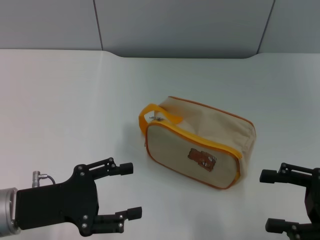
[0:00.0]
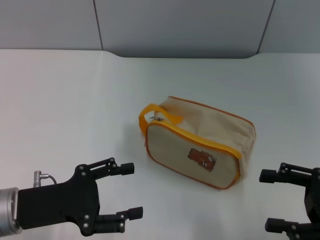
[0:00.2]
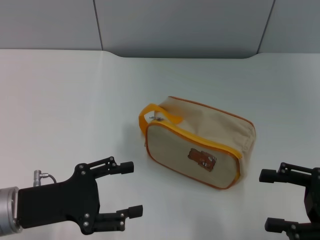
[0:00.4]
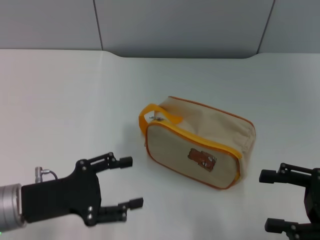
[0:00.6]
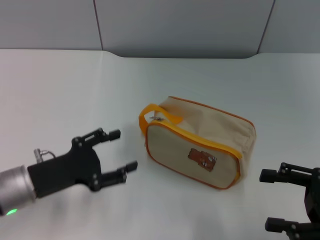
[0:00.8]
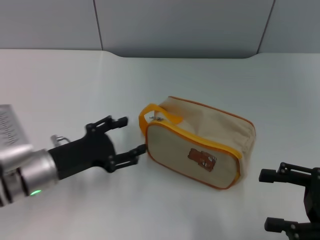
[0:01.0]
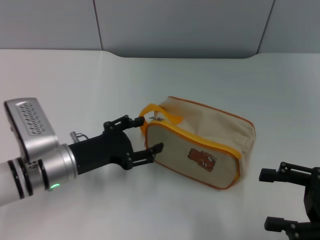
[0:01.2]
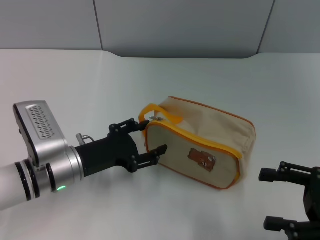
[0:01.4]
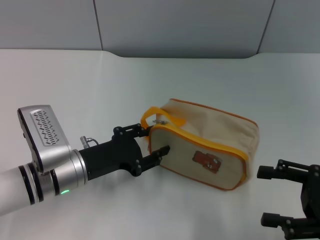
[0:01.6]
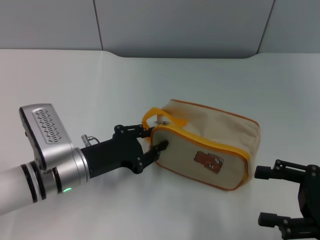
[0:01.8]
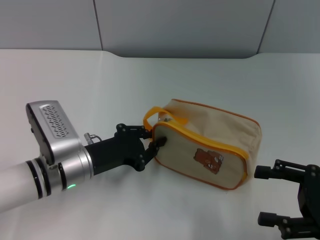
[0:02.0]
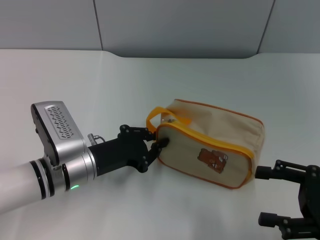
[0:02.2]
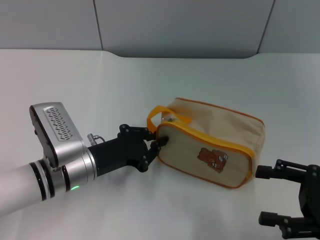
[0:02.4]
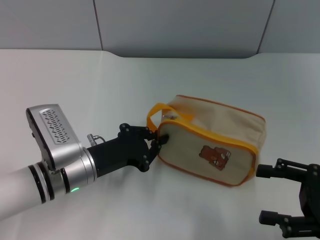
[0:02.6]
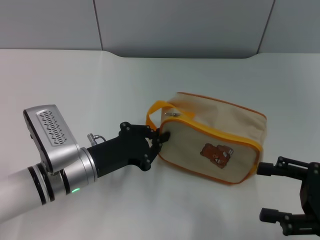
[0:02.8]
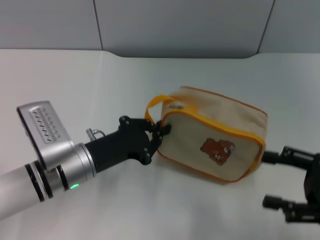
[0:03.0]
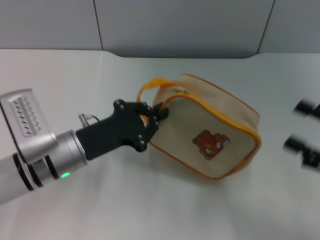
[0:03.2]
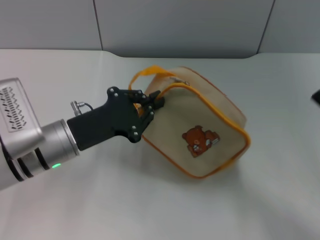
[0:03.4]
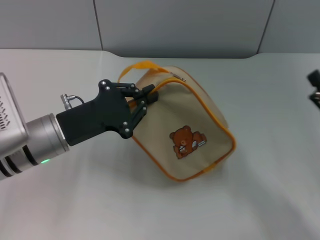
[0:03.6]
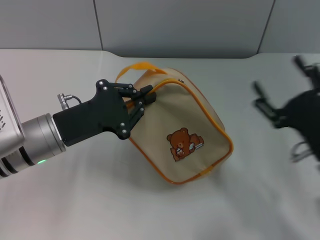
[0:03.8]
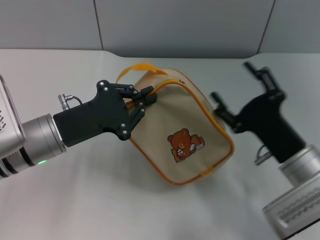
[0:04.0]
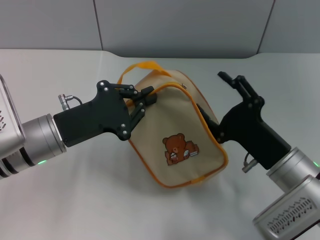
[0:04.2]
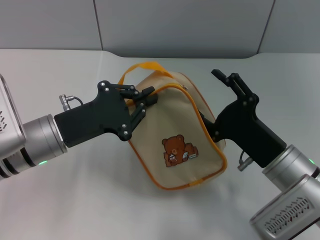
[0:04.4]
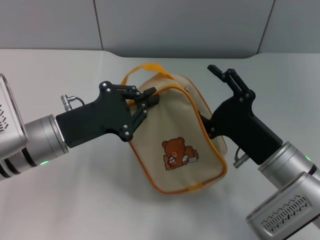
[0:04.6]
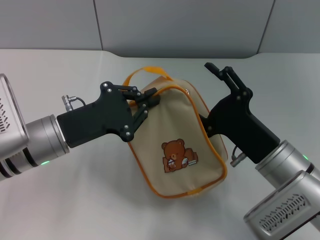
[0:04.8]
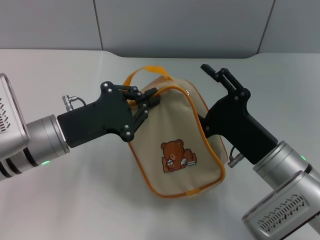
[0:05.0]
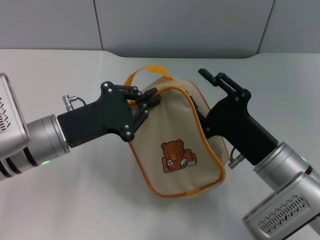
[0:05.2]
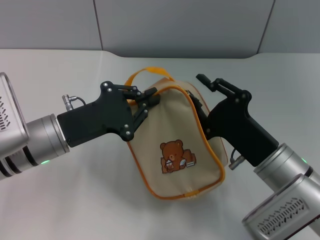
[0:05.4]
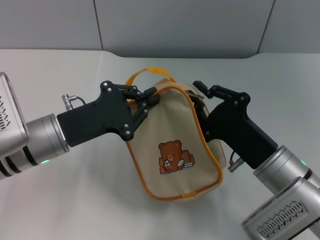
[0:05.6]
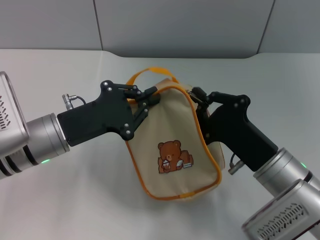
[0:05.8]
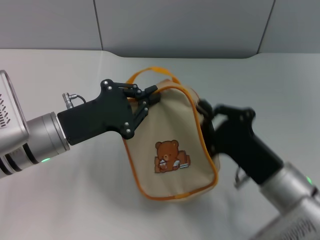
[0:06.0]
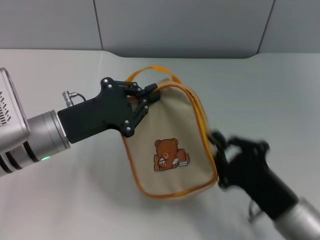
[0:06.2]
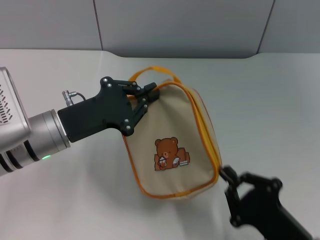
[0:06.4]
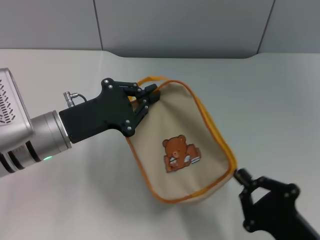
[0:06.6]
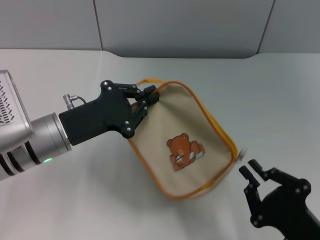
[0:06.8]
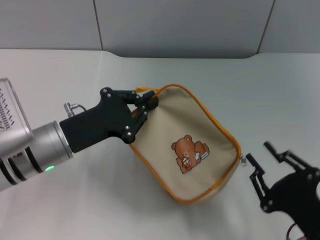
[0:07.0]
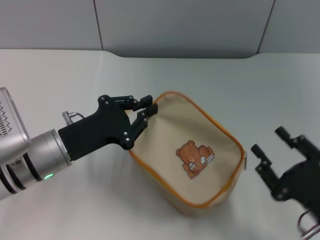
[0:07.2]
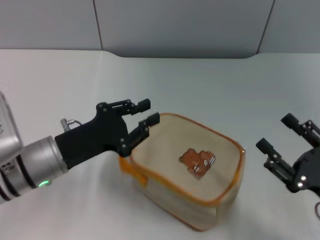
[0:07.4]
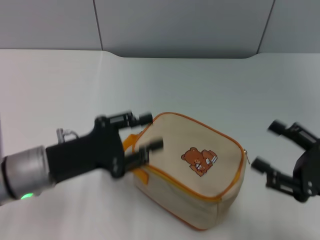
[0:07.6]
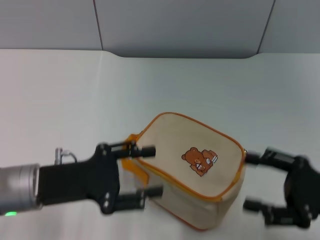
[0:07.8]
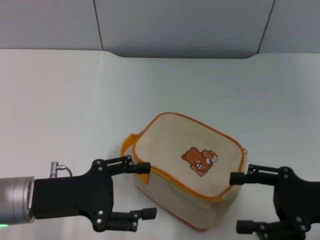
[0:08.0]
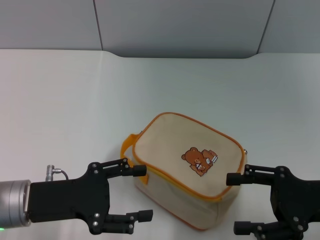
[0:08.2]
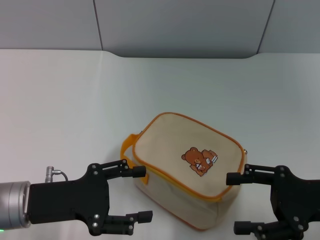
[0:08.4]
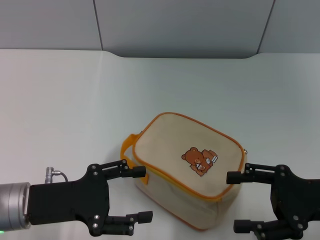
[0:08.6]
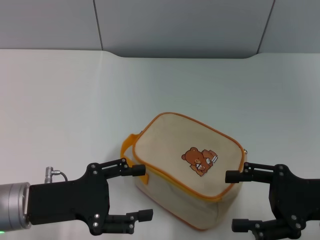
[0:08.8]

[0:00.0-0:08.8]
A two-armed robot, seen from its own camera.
Step, 0:00.0 to 0:03.2: Pick up the bag with left gripper.
Step, 0:03.4 to 0:06.8: Unzip the zipper of bag with right gripper.
Step, 0:07.0 to 0:07.4: Place the bag on the table with left gripper.
0:00.0 to 0:01.4: The left gripper shifts about 10 cm forward and to the right.
0:01.4 to 0:03.0: The left gripper closes up.
0:03.0 to 0:04.4: The left gripper changes place by approximately 5 cm; the right gripper shifts approximately 15 cm to the left.
0:04.4 to 0:05.8: The right gripper closes up.
0:05.8 to 0:07.4: The right gripper shifts roughly 15 cm to the right and backward.
0:07.4 to 0:08.8: The right gripper travels forward and upward by some 10 cm, and opens up; the left gripper is displaced backward by some 5 cm, and opens.

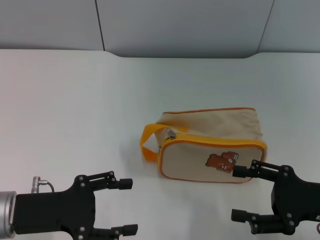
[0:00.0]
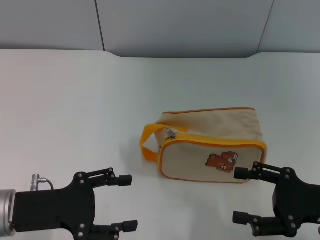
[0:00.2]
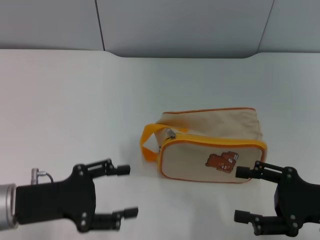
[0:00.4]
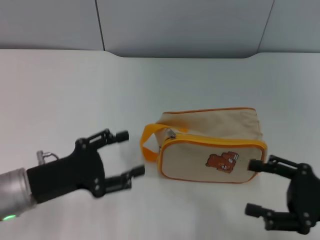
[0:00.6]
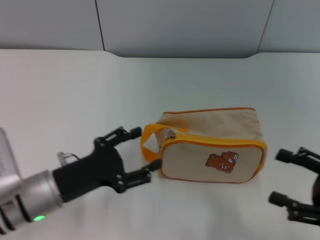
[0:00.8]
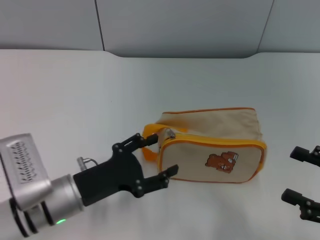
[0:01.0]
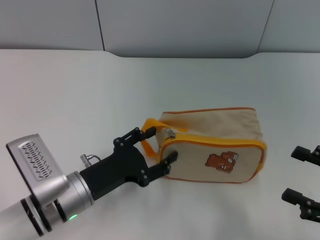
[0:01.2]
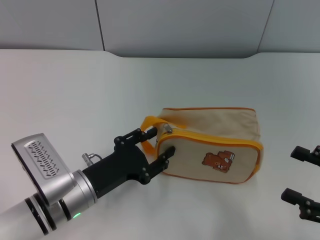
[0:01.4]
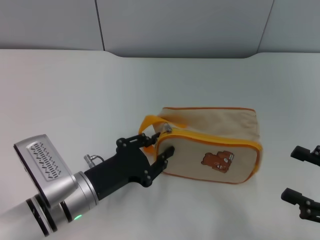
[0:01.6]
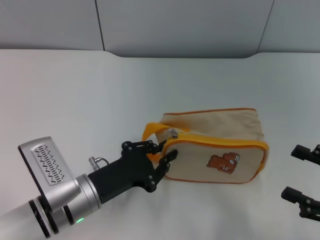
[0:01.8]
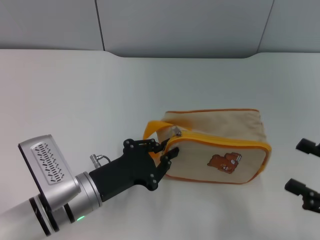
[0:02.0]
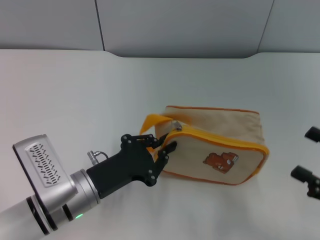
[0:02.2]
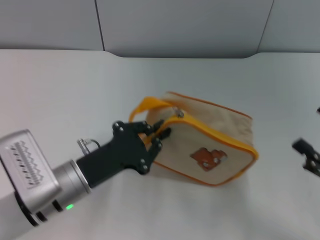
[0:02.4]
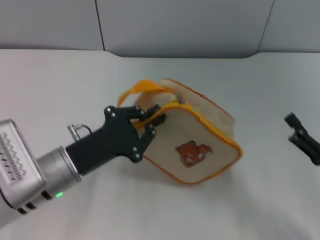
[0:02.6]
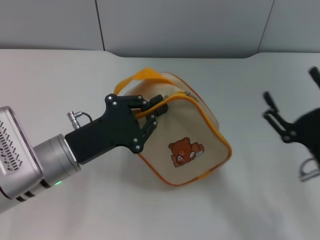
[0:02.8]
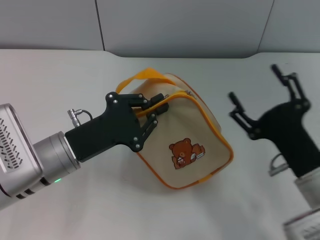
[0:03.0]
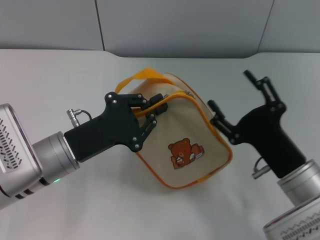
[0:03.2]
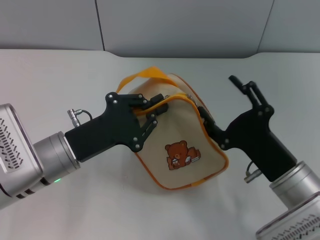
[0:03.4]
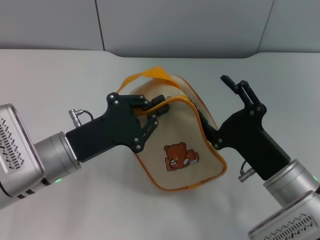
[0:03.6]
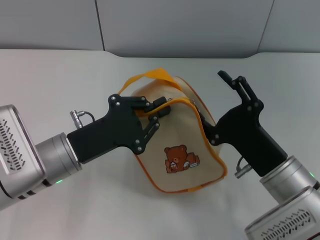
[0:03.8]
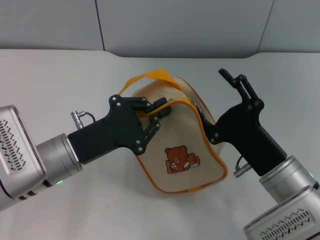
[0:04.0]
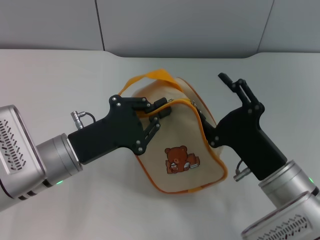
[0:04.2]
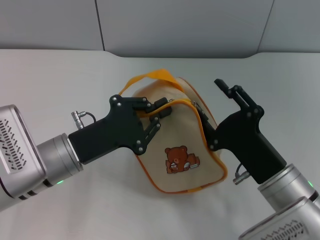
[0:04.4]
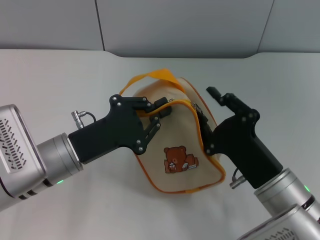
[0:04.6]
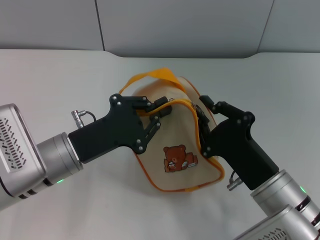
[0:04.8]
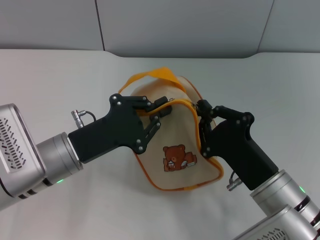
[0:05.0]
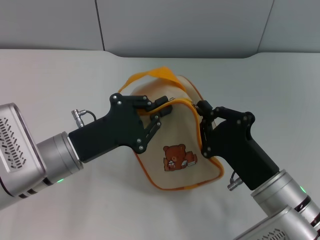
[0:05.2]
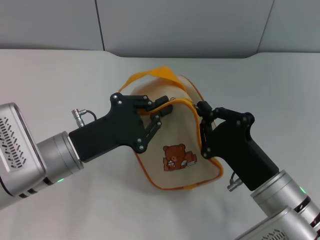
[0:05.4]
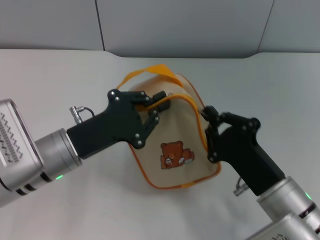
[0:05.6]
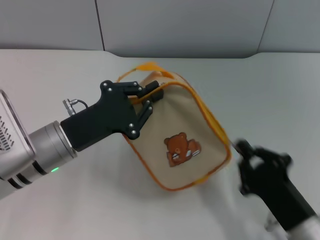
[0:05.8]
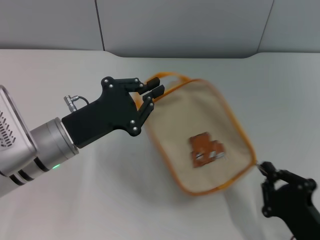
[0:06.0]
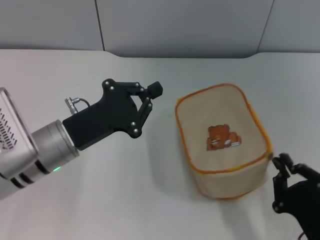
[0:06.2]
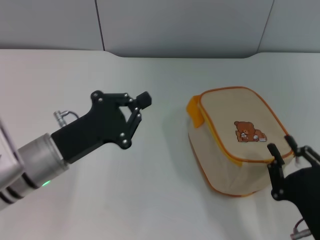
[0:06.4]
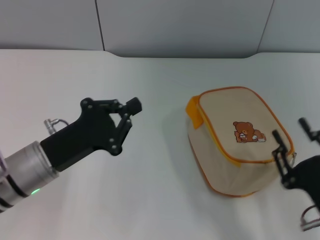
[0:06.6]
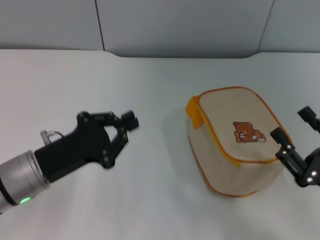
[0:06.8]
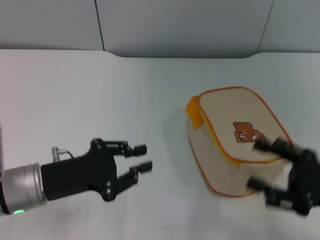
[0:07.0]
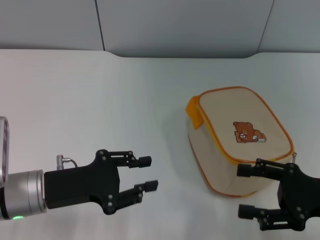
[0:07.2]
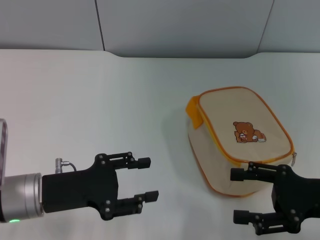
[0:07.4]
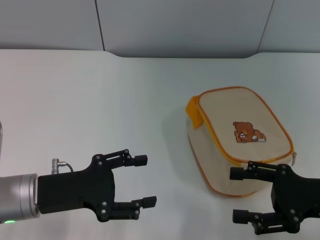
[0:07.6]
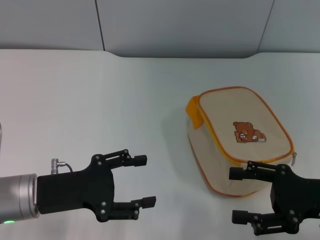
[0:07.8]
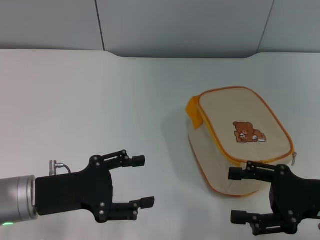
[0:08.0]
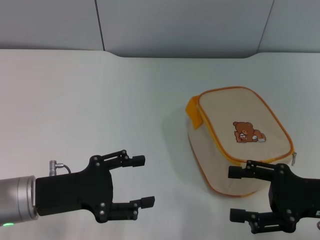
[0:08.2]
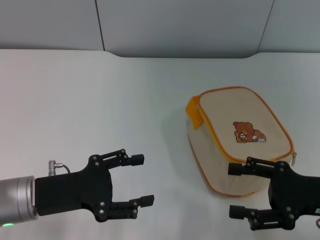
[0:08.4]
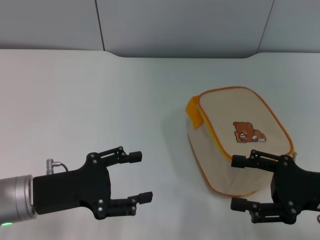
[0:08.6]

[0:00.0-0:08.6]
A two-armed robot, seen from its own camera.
Step, 0:00.0 to 0:02.8: Pick up the bag with left gripper.
Step, 0:03.0 to 0:06.4: Unzip the zipper of bag with right gripper.
0:00.0 to 0:01.4: The left gripper heads to the right and downward, covering roughly 10 cm; the right gripper moves some 5 cm.
0:01.4 to 0:02.8: The left gripper moves upward, about 5 cm, and closes its fingers; the right gripper moves to the left, approximately 10 cm.
0:02.8 to 0:04.4: The right gripper travels to the left by about 10 cm.
0:04.4 to 0:05.8: The right gripper ends up about 5 cm from where it was, and closes.
0:05.8 to 0:07.2: The left gripper changes place by about 5 cm; the right gripper moves to the right, upward and forward, about 15 cm, and opens its fingers.
0:07.2 to 0:08.6: The left gripper opens up.

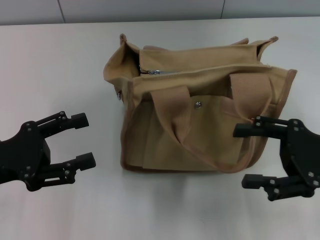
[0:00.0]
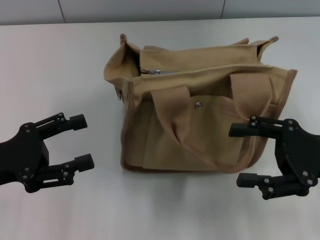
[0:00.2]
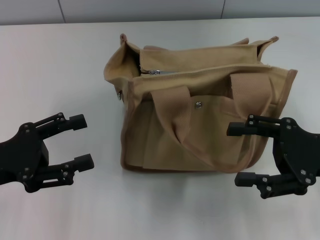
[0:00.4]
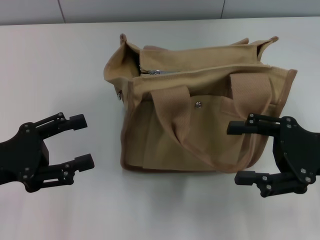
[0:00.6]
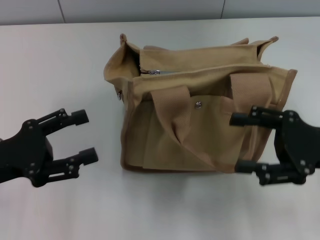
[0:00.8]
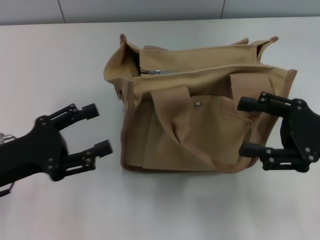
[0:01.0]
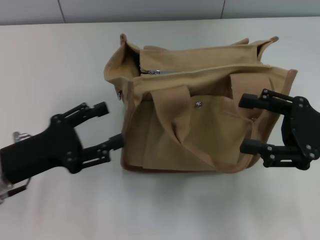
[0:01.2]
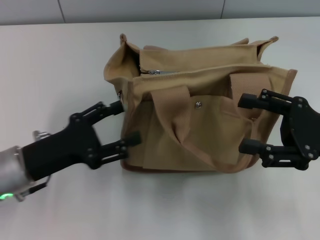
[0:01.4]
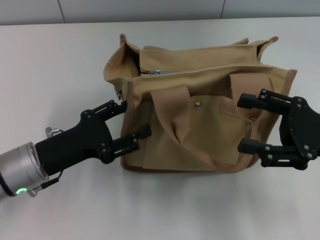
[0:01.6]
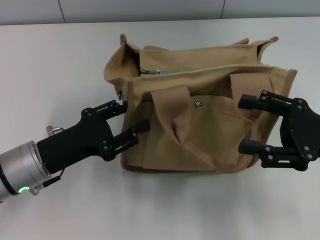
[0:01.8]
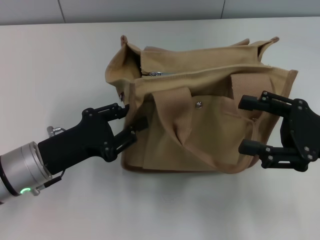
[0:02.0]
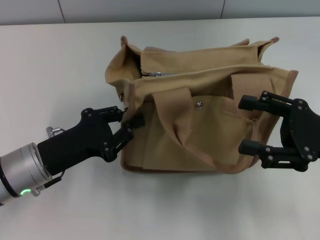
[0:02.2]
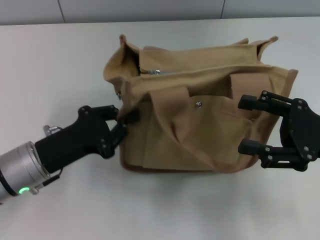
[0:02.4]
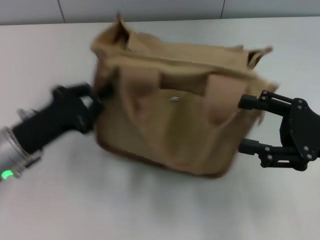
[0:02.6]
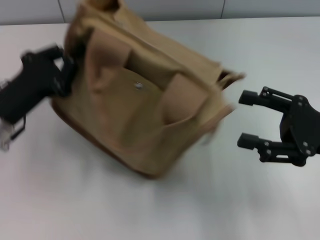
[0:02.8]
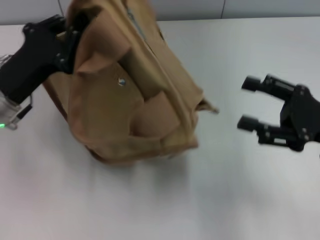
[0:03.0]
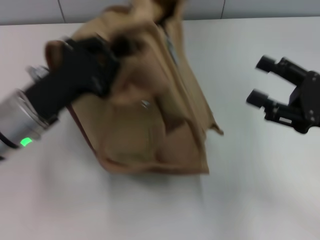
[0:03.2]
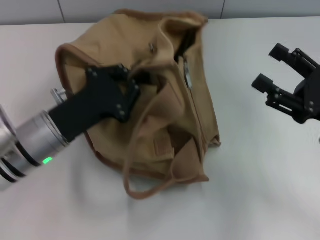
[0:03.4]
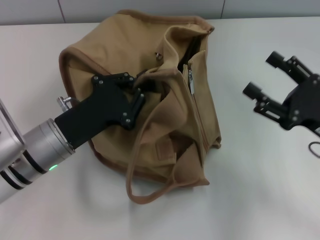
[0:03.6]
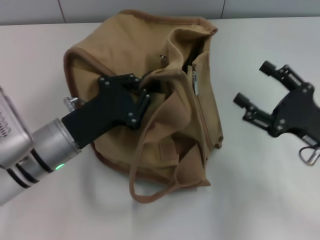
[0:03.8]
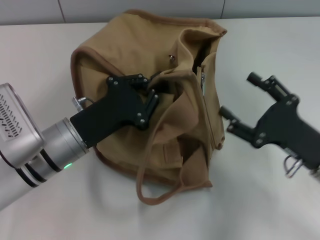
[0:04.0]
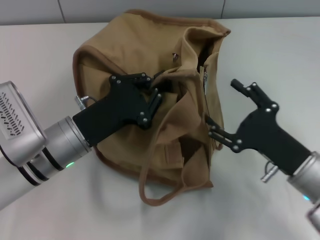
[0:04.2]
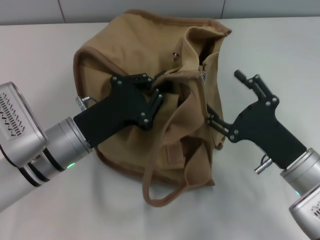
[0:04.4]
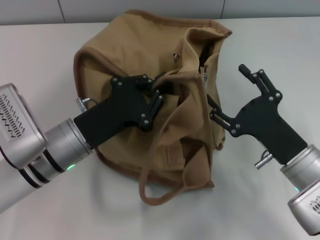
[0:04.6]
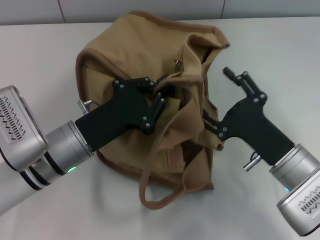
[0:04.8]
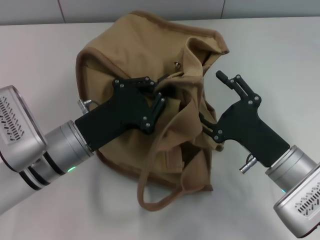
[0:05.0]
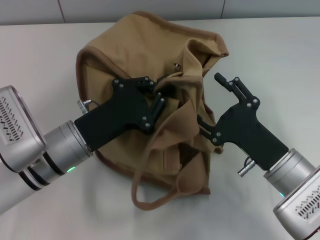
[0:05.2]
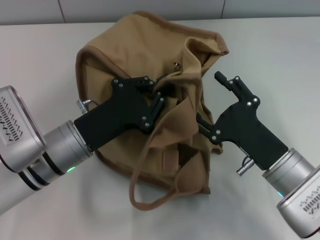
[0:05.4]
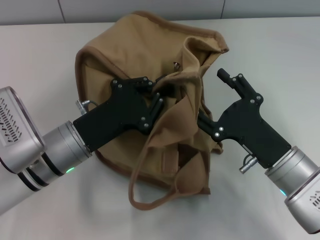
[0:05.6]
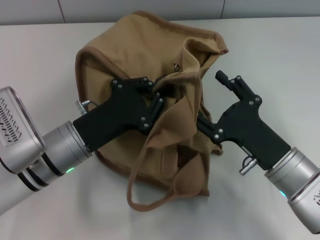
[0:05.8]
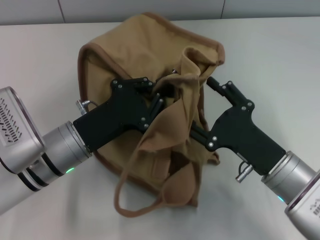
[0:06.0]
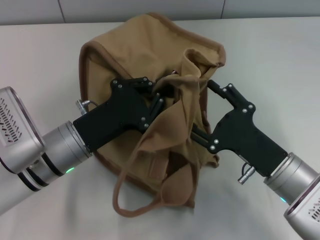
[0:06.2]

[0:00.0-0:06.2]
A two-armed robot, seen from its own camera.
0:00.0 to 0:01.6: The left gripper shifts some 5 cm to the right.
0:01.6 to 0:03.2: The left gripper ends up approximately 5 cm from where it was, and closes its fingers.
0:03.2 to 0:04.6: The left gripper shifts by roughly 5 cm; the right gripper heads to the left and downward, covering some 10 cm.
